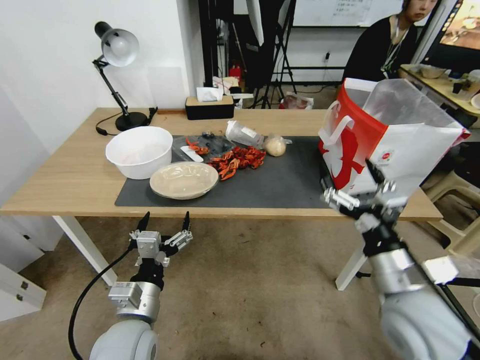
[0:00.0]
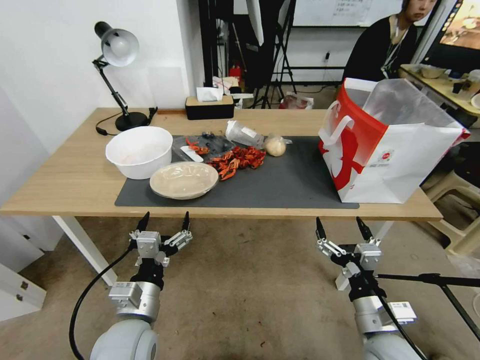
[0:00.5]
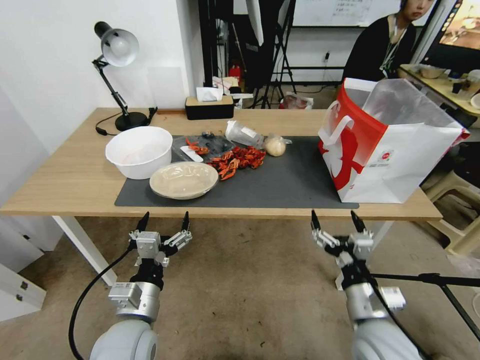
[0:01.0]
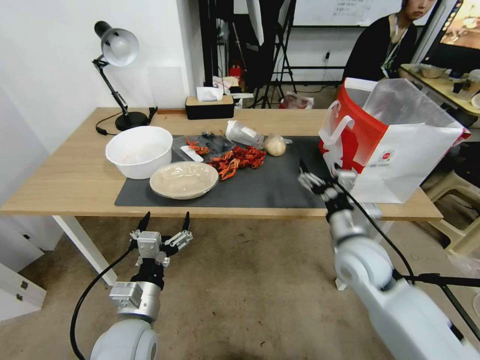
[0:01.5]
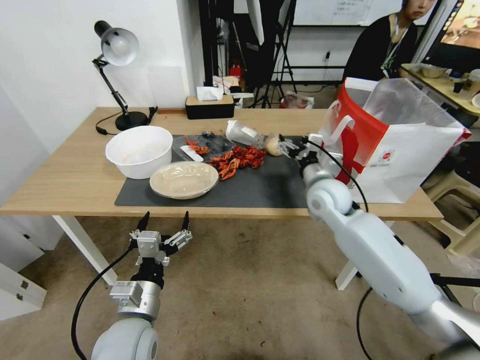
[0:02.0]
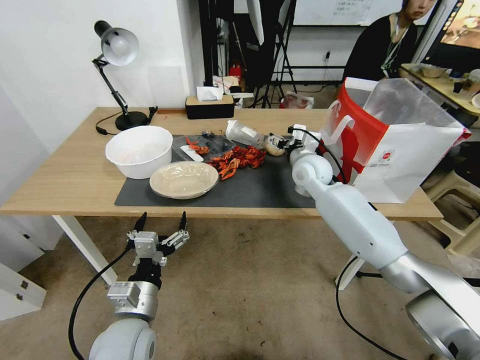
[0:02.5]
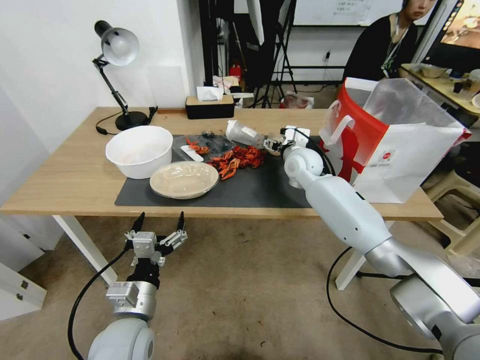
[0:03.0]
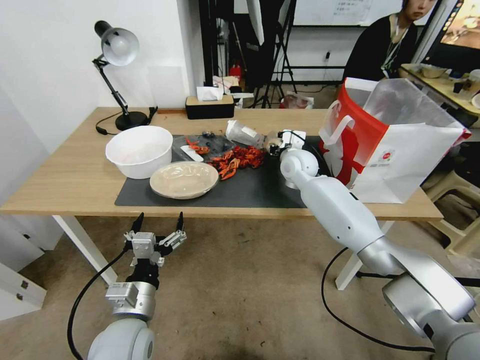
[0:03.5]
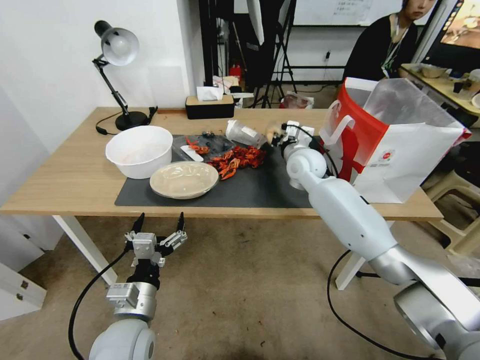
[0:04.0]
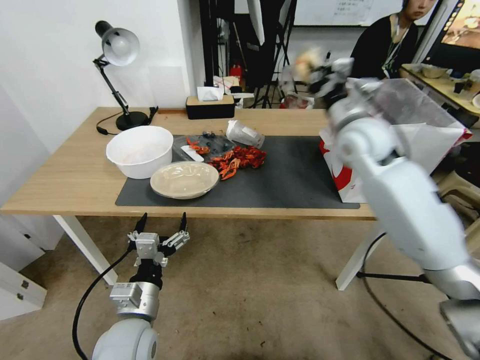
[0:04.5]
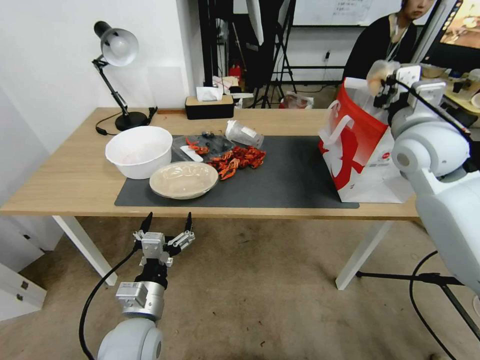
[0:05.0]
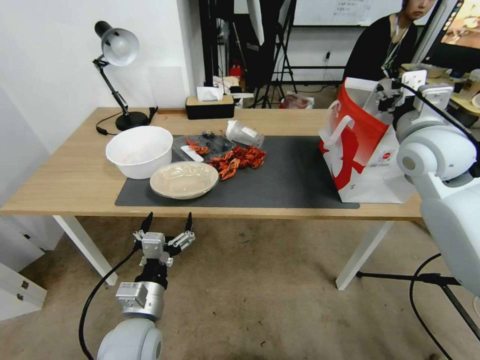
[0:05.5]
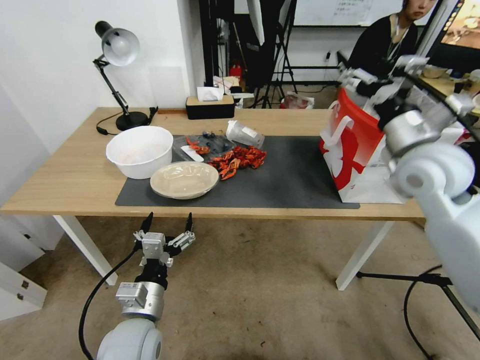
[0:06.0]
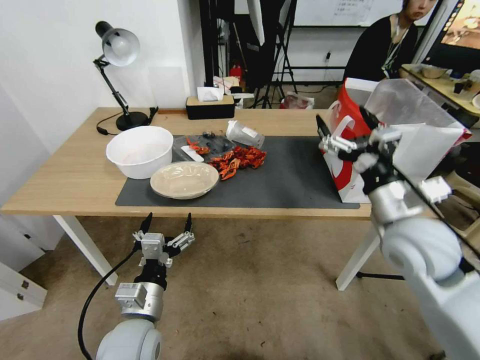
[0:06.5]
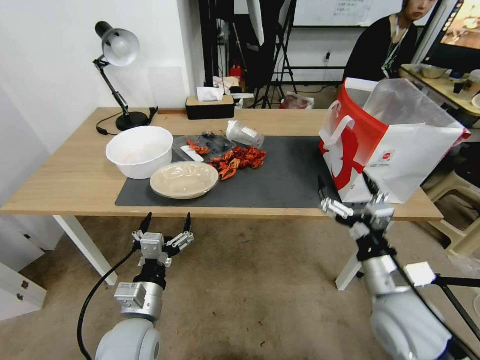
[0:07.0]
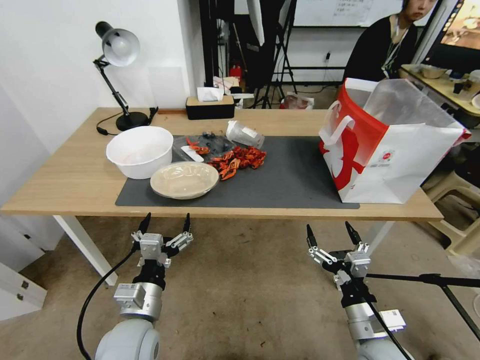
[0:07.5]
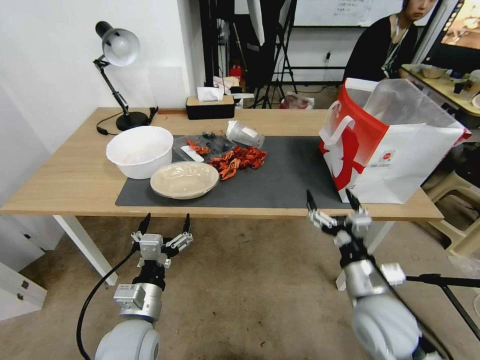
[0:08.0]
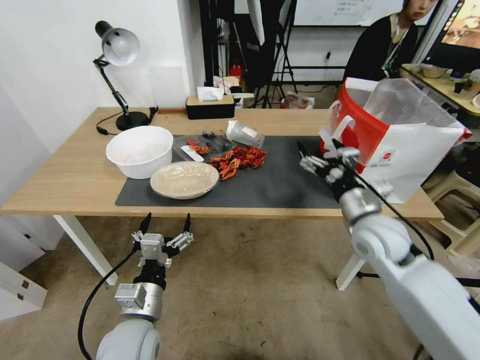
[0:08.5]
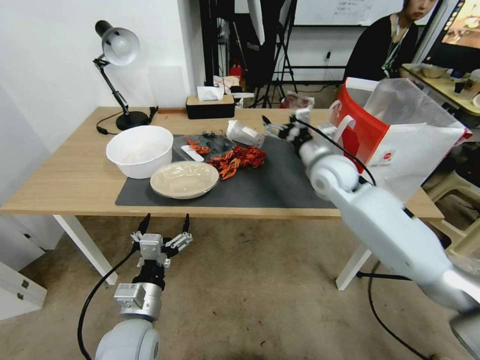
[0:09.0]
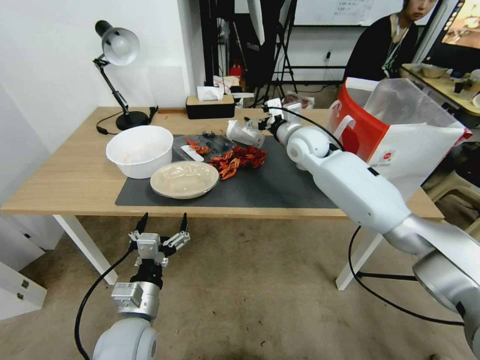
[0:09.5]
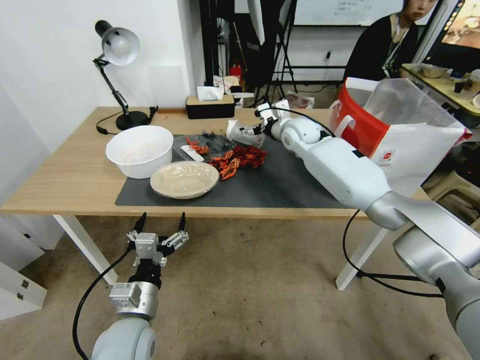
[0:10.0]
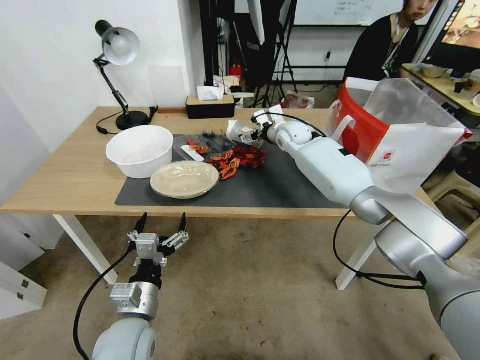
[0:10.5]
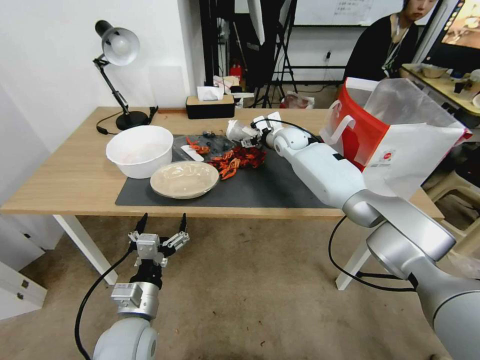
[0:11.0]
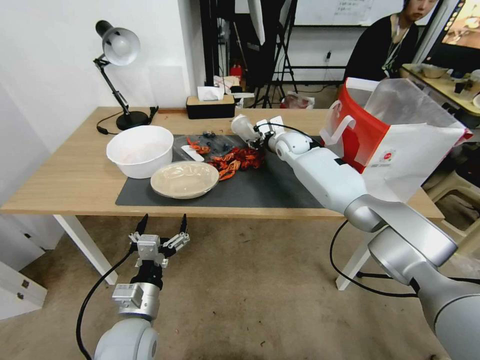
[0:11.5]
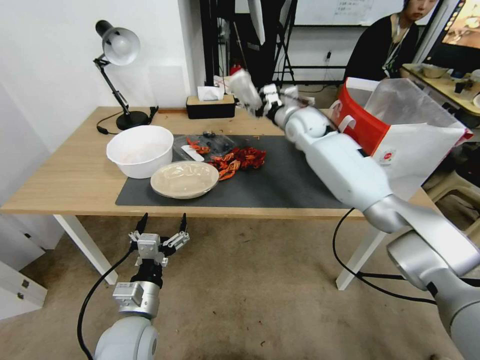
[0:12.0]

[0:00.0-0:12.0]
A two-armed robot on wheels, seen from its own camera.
0:00.0 to 0:02.0: The right gripper heads forward, covering about 25 cm.
0:02.0 to 0:04.0: The right gripper moves forward, roughly 10 cm, and closes its fingers.
0:04.0 to 0:06.0: The right gripper is displaced backward, to the right and upward by approximately 25 cm, and opens up.
0:06.0 to 0:08.0: The right gripper shifts approximately 30 cm downward and backward.
0:08.0 to 0:10.0: The right gripper is displaced forward by some 40 cm.
0:10.0 to 0:12.0: The right gripper closes up.

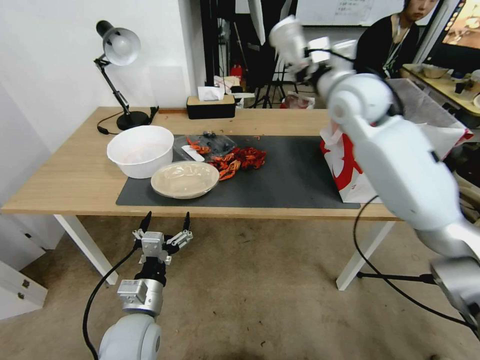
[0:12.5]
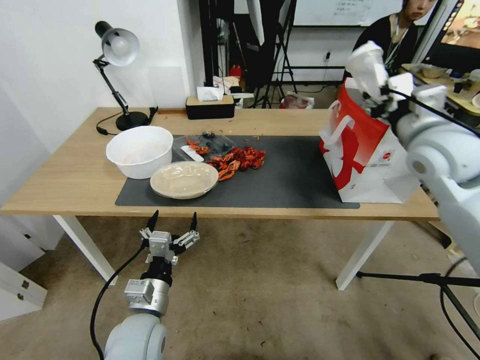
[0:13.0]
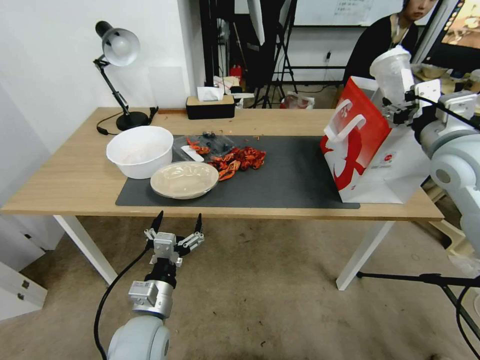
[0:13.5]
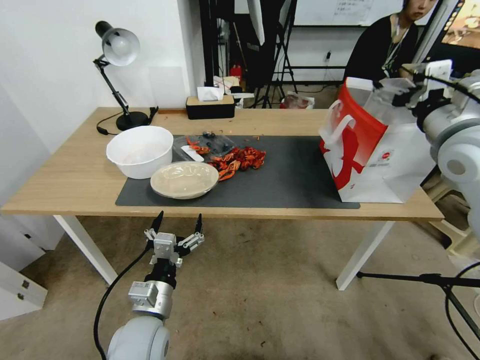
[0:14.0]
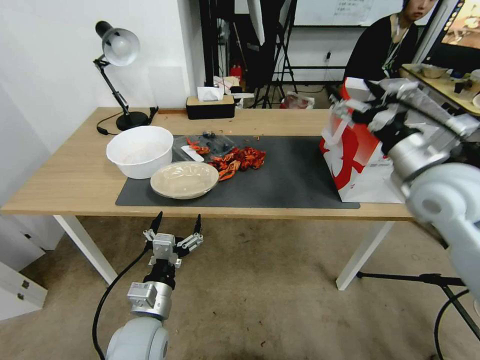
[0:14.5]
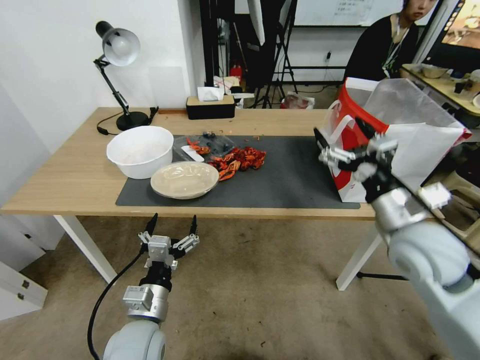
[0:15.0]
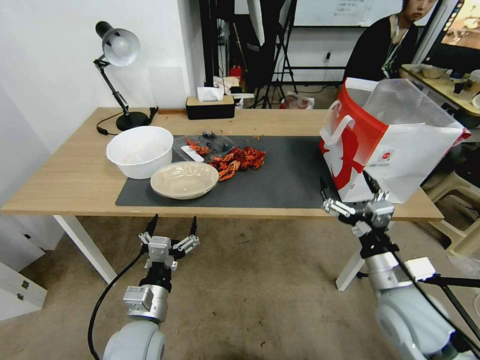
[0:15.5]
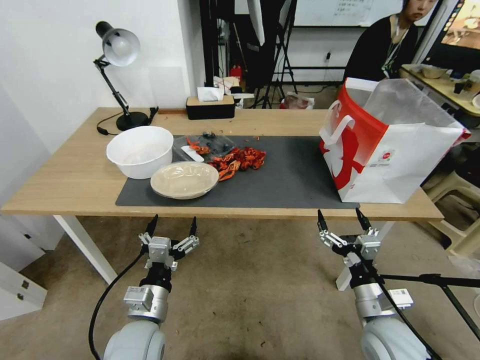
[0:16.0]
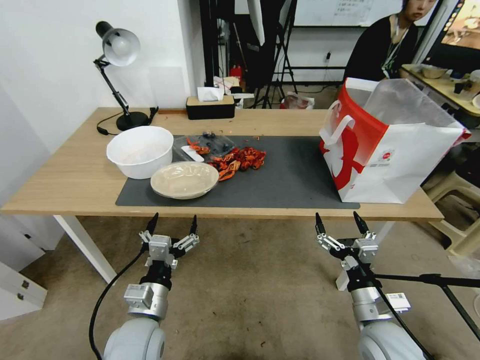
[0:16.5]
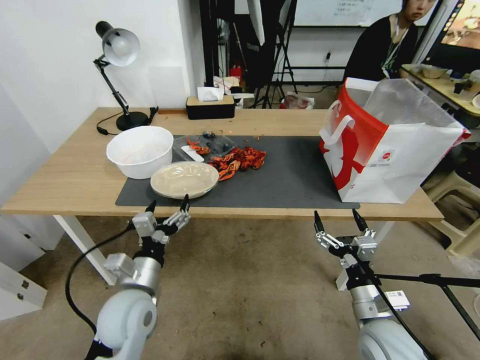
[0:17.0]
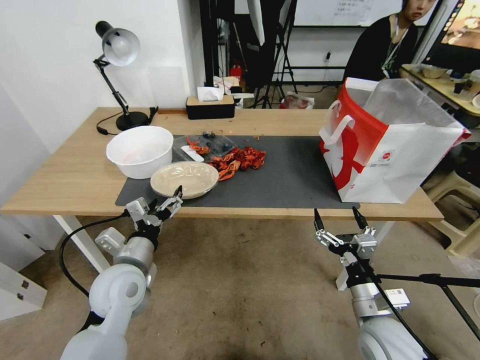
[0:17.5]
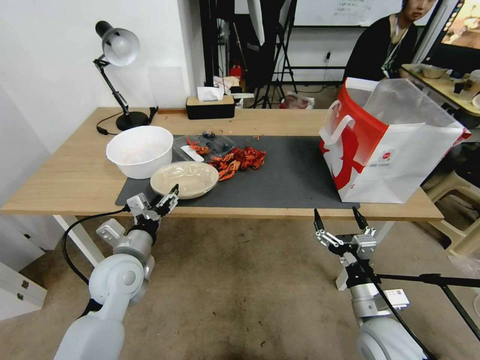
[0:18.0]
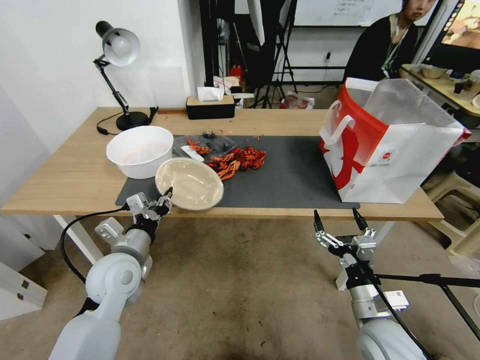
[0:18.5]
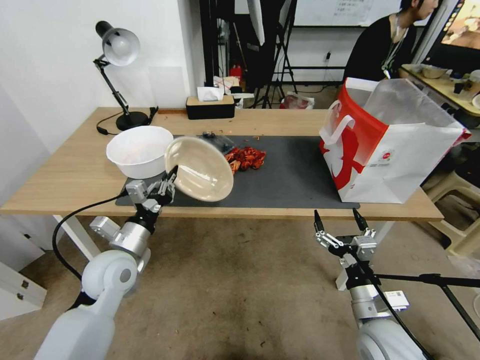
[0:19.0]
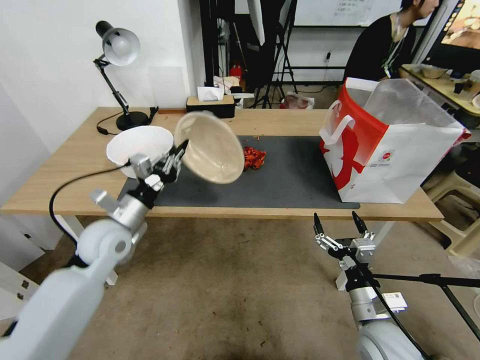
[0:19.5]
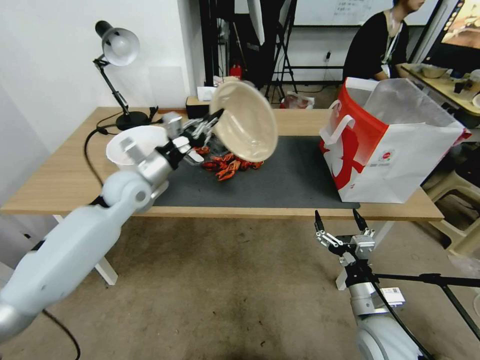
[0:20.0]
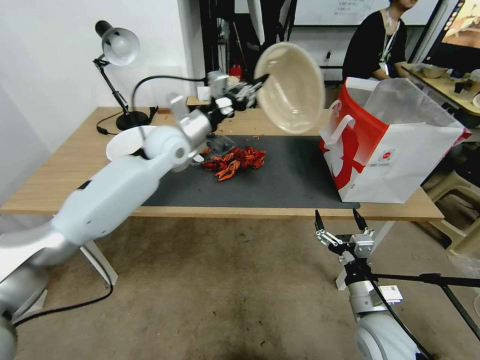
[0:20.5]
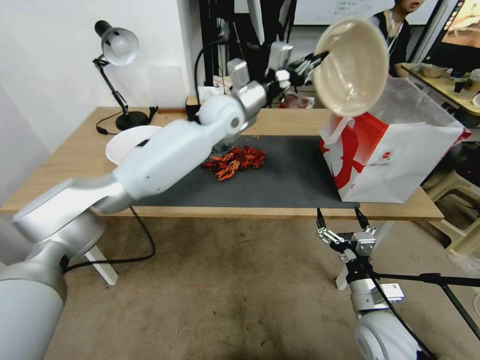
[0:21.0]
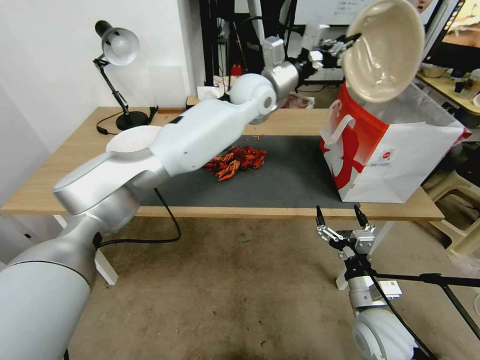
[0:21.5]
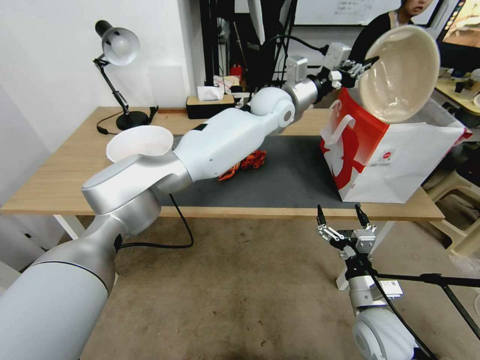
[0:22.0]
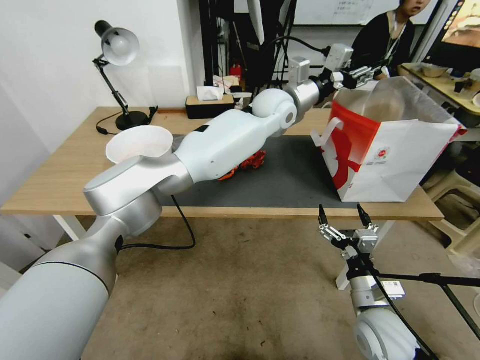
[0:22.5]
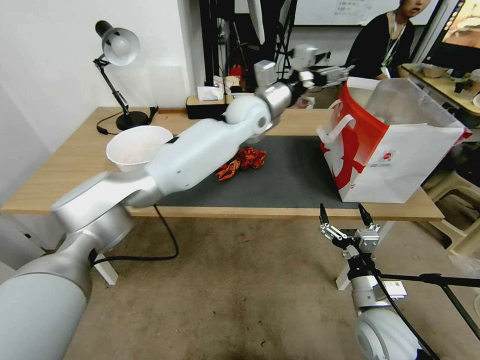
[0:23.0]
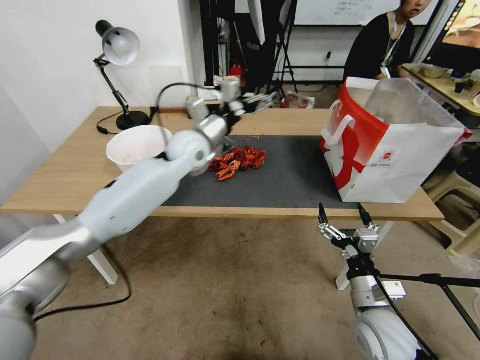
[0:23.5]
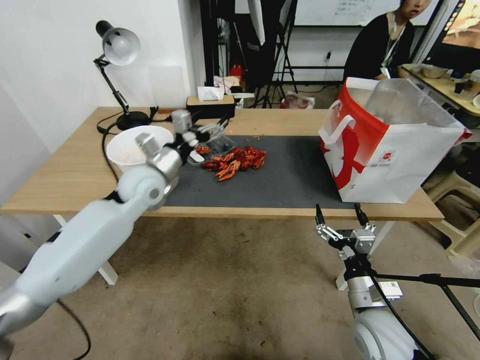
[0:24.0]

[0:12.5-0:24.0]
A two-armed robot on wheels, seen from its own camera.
0:12.5 to 0:14.5: The right gripper travels backward, to the right and downward by roughly 20 cm, and opens up.
0:14.5 to 0:16.5: The right gripper goes approximately 30 cm downward and backward.
0:16.5 to 0:18.5: The left gripper goes approximately 15 cm forward, to the left and upward, and closes.
0:18.5 to 0:20.0: The left gripper shifts roughly 20 cm forward and upward.
0:20.0 to 0:22.0: The left gripper heads to the right and forward, covering about 35 cm.
0:22.0 to 0:24.0: The left gripper is displaced to the left, backward and downward by some 35 cm, and opens up.

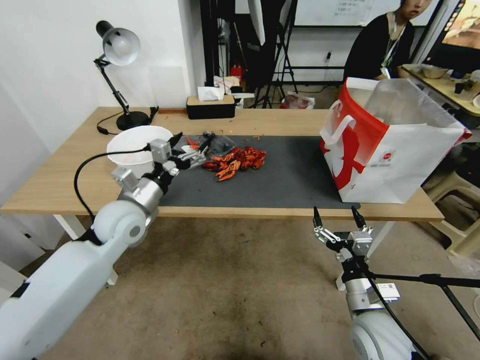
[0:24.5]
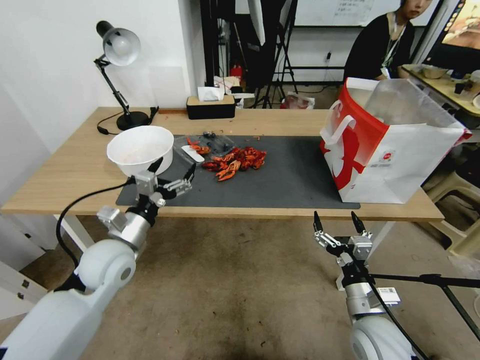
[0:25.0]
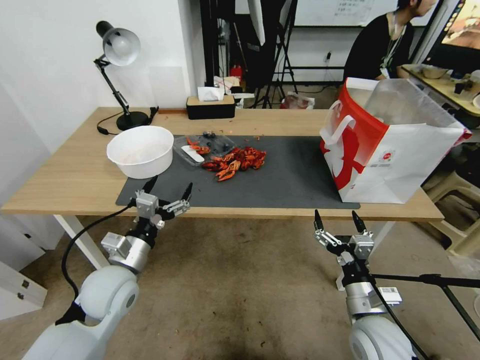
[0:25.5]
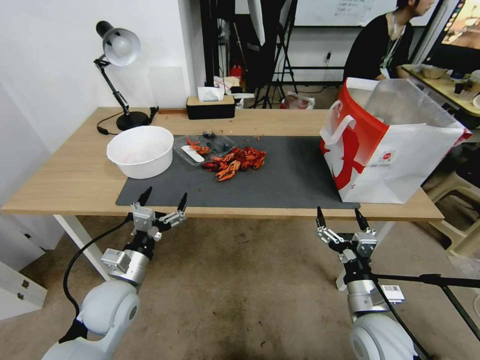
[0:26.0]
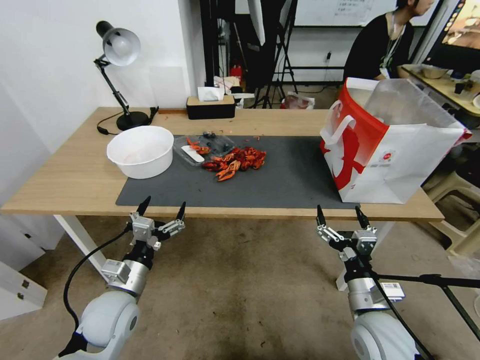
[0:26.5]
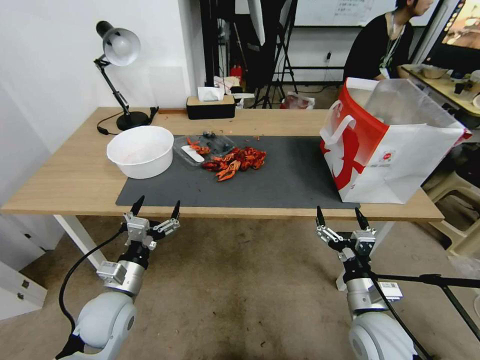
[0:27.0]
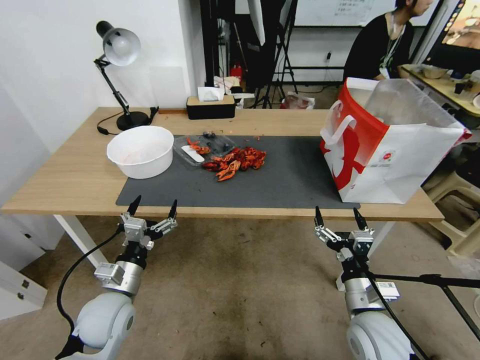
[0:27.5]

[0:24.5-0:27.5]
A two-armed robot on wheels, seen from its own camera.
0:24.5 to 0:26.0: The left gripper goes some 15 cm backward and downward.
0:26.0 to 0:27.5: The grippers stay close to where they were, moving slightly.
